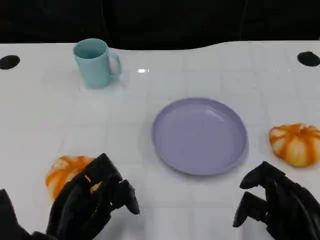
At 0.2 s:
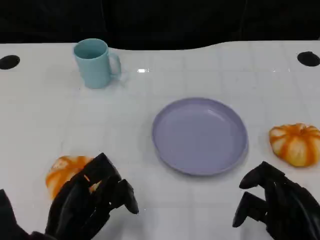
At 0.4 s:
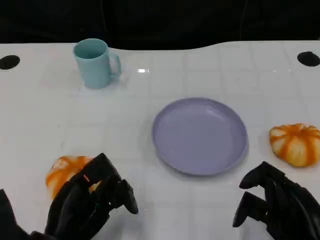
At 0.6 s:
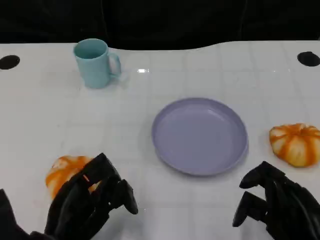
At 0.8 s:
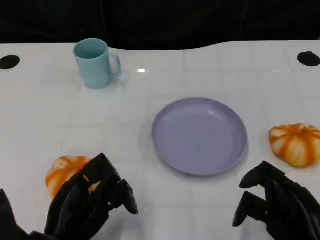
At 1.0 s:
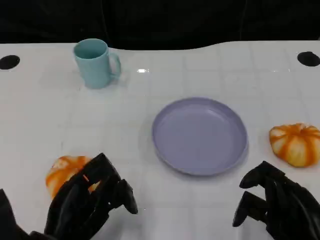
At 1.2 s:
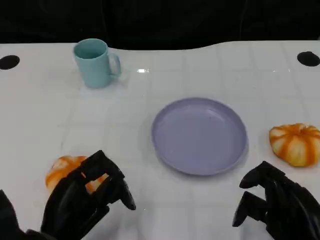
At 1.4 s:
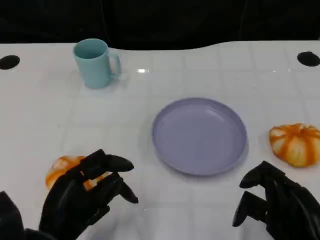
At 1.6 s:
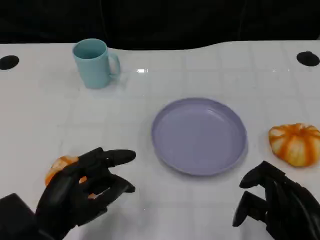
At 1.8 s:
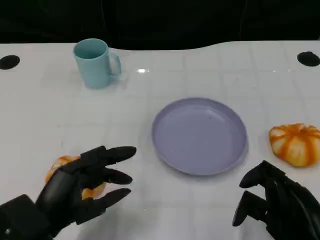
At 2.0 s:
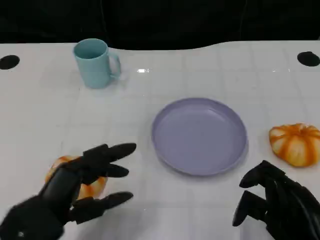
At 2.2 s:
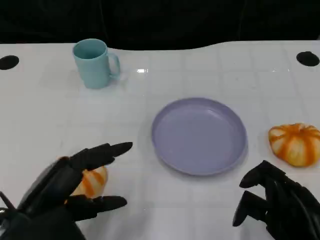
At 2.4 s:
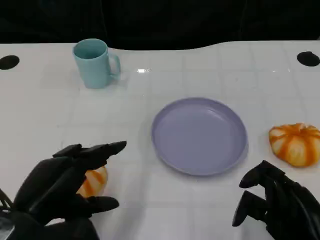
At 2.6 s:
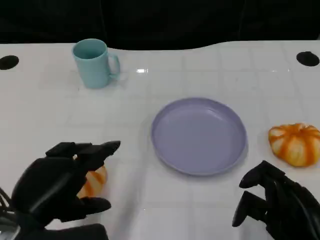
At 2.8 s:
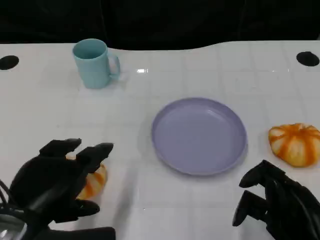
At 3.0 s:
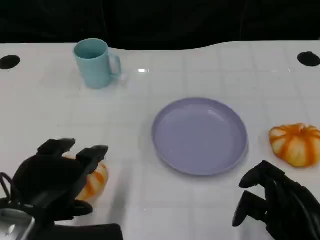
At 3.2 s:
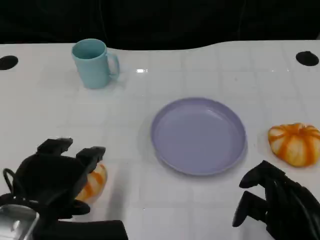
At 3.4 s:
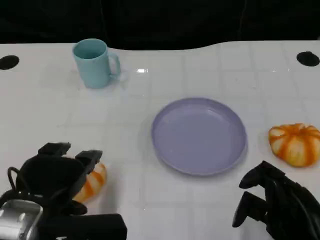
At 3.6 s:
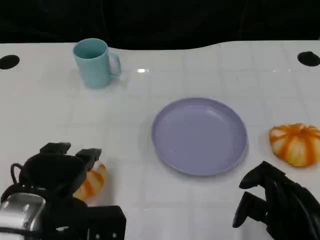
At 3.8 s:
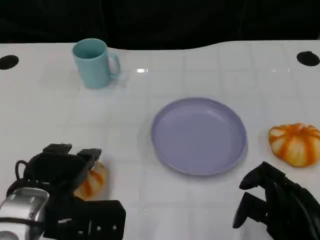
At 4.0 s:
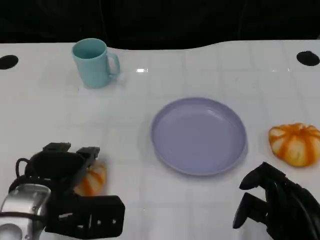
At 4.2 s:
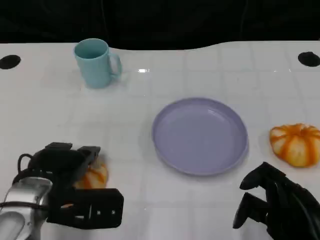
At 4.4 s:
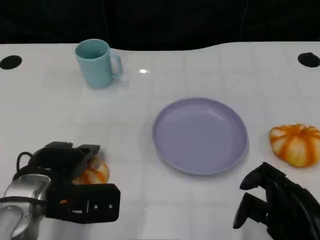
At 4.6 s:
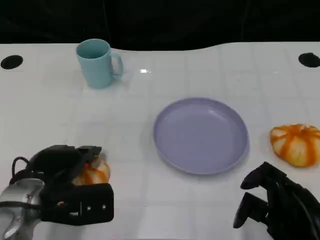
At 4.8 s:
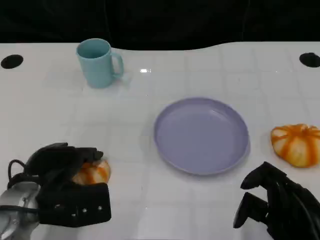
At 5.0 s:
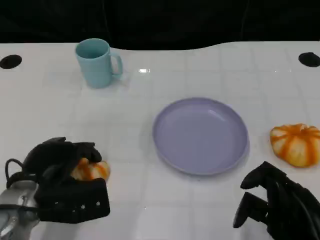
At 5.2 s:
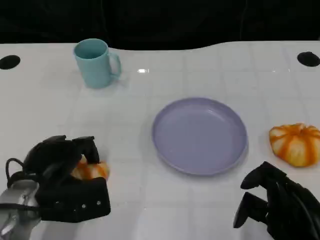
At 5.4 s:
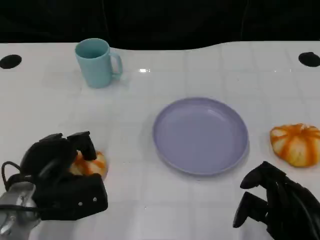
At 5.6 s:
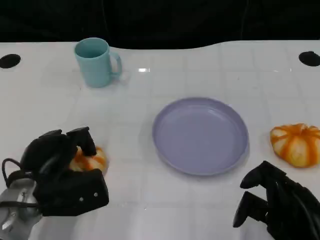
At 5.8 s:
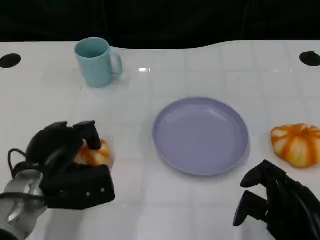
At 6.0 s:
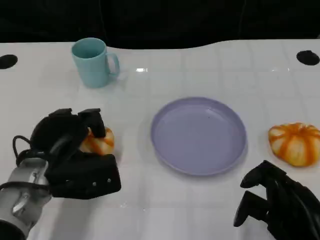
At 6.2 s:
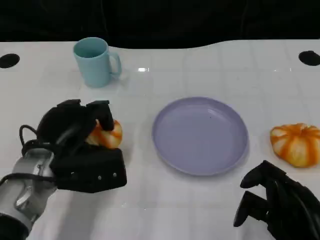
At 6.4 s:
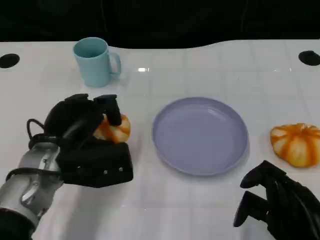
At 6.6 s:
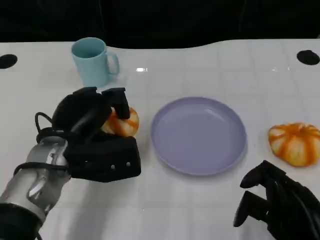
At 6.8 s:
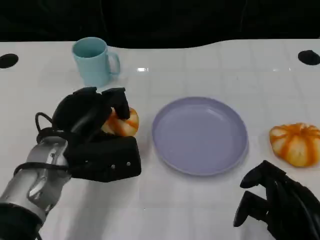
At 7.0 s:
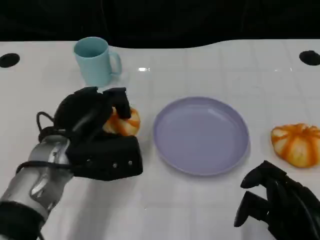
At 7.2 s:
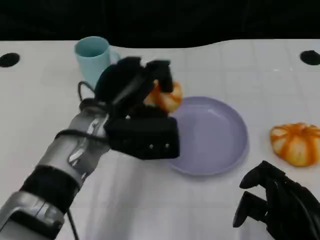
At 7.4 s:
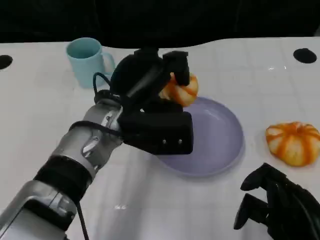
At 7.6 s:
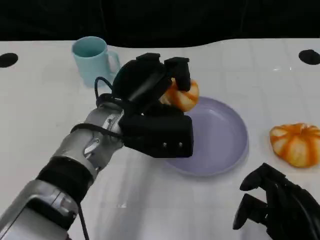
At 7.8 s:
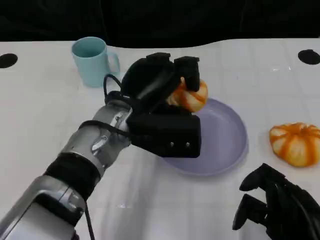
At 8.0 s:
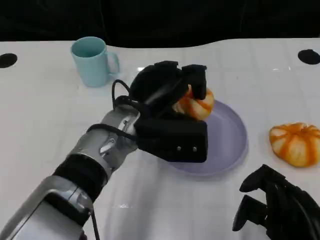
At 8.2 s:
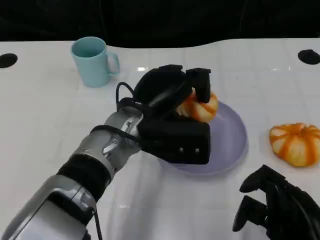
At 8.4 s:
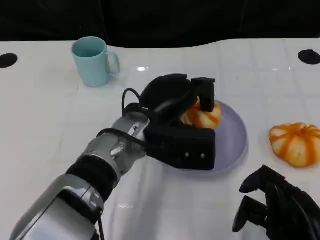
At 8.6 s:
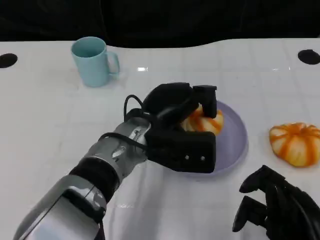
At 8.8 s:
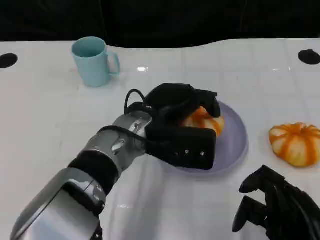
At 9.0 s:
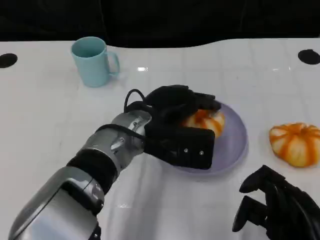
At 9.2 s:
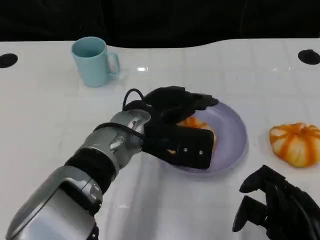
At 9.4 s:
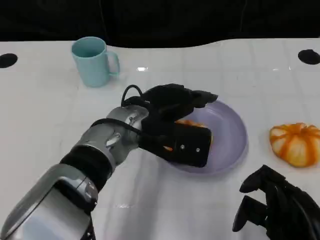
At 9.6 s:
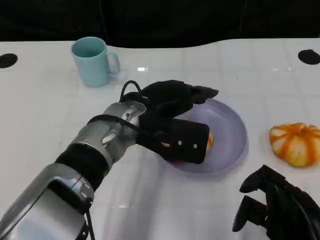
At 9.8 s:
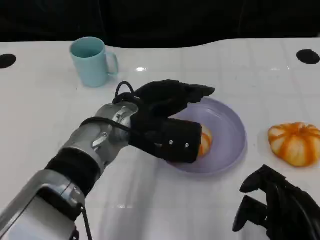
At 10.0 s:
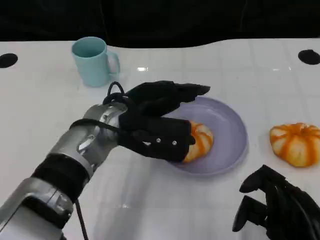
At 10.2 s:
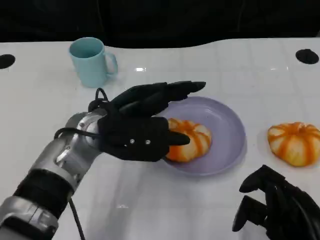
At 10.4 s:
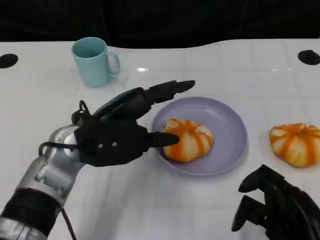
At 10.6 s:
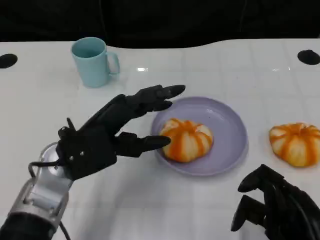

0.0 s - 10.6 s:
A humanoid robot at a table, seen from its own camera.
Task of the whole recording: Grasp the bread from the table and place it into the plate.
1.6 s - 3.0 s: The left hand travels upward by approximately 5 cm.
3.0 s - 4.6 s: The left hand shifts roughly 10 cm forward and downward.
4.6 s - 6.0 s: There are only small adjustments of the hands.
6.0 s - 7.6 s: The left hand moves to the right and upward, roughly 15 cm.
9.0 s - 10.6 s: The left hand moves to the left, approximately 10 cm.

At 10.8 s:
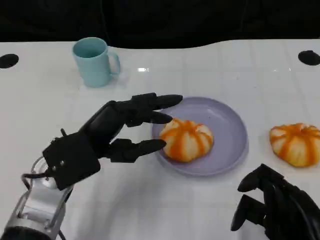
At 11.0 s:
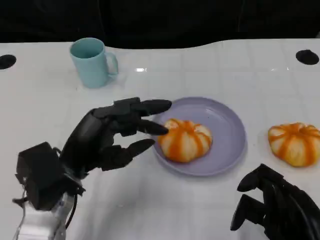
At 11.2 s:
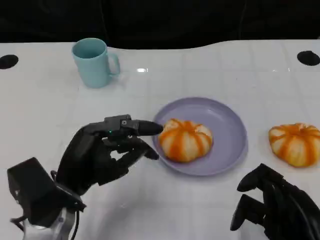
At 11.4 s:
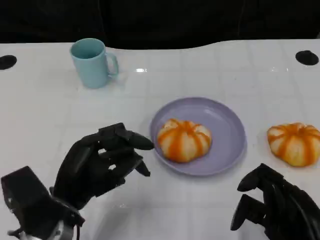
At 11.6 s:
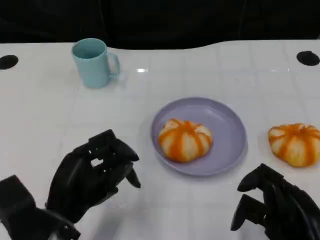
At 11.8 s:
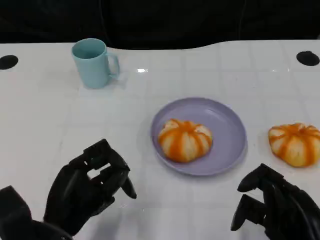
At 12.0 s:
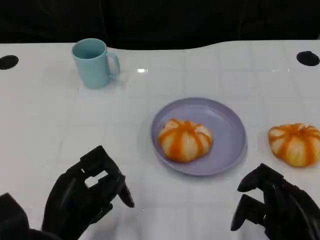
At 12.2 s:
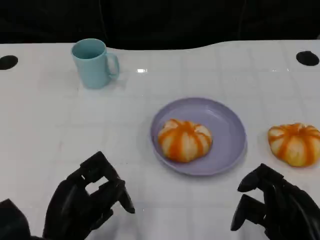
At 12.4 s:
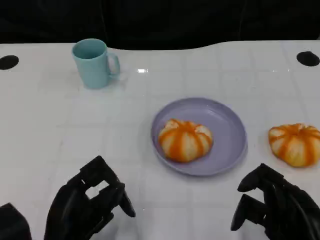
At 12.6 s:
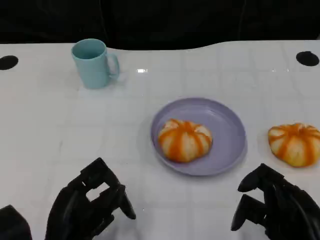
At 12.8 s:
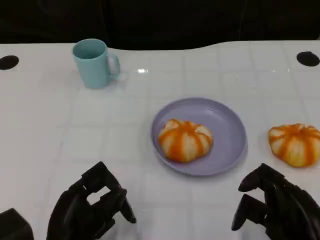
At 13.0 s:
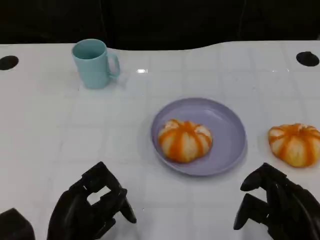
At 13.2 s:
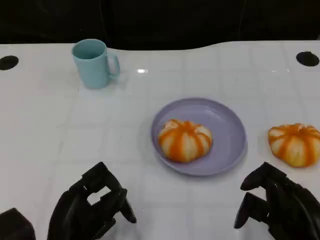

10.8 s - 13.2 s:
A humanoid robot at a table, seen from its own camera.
Task of the whole recording: Grasp the bread from the table and place it into the plate.
10.8 s - 12.0 s: The left hand shifts roughly 10 cm backward and downward.
12.0 s - 13.2 s: The hands move only a little.

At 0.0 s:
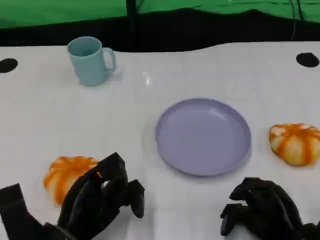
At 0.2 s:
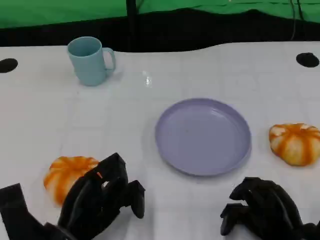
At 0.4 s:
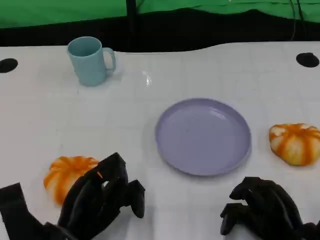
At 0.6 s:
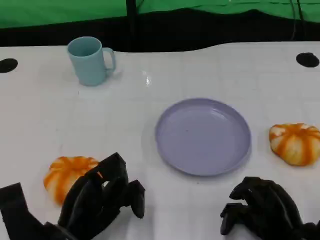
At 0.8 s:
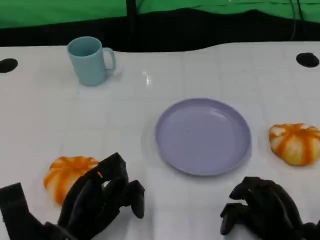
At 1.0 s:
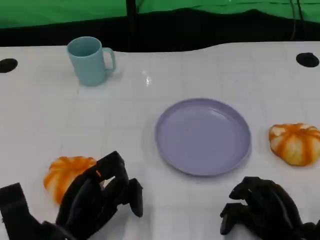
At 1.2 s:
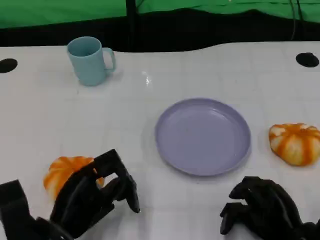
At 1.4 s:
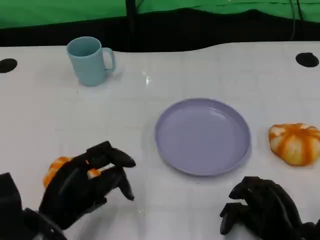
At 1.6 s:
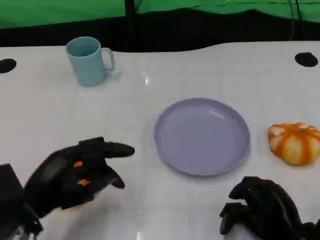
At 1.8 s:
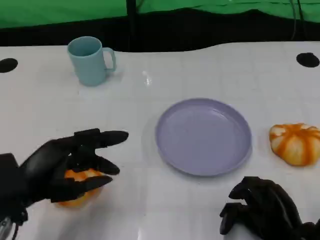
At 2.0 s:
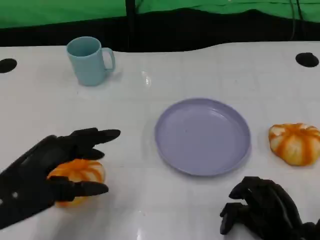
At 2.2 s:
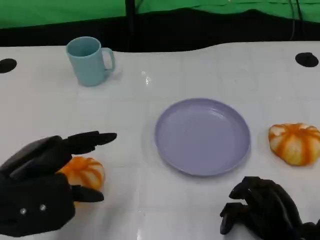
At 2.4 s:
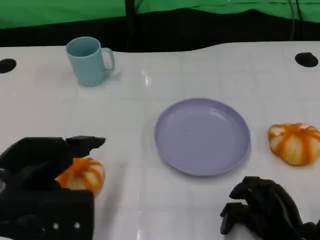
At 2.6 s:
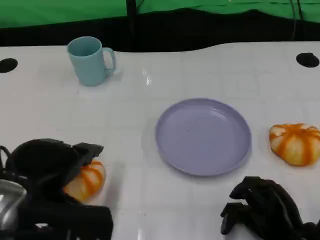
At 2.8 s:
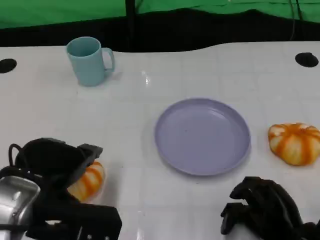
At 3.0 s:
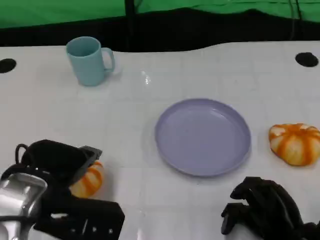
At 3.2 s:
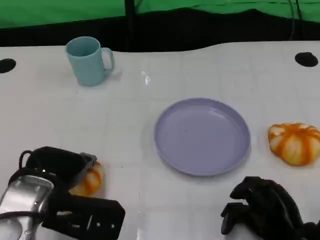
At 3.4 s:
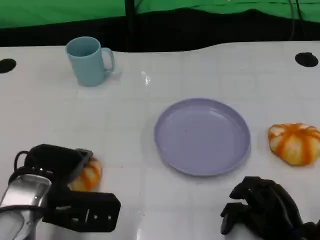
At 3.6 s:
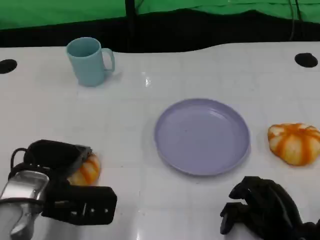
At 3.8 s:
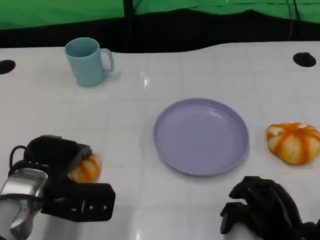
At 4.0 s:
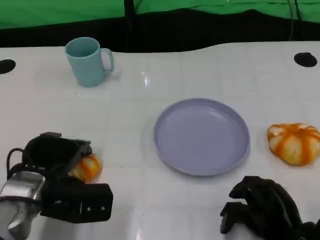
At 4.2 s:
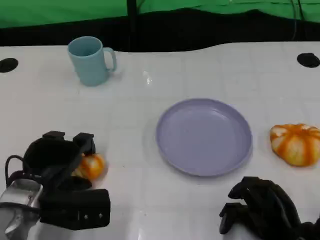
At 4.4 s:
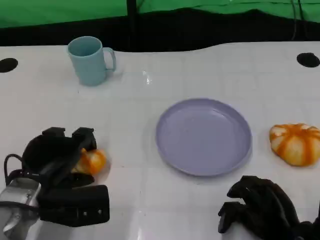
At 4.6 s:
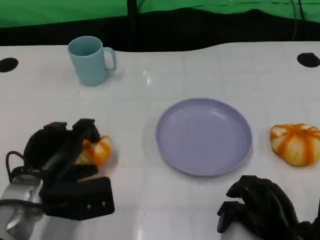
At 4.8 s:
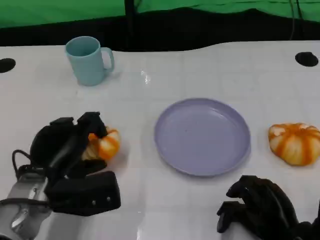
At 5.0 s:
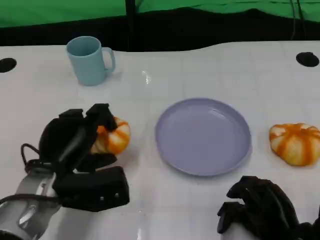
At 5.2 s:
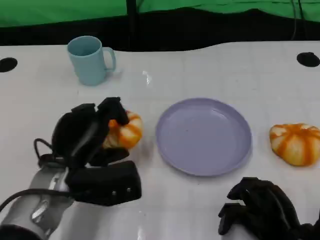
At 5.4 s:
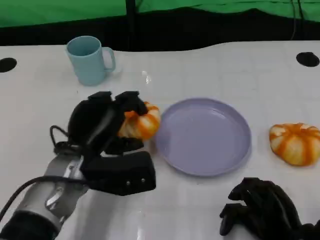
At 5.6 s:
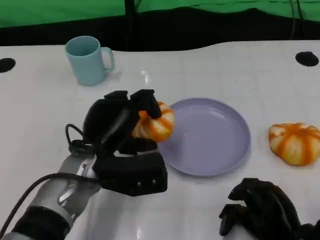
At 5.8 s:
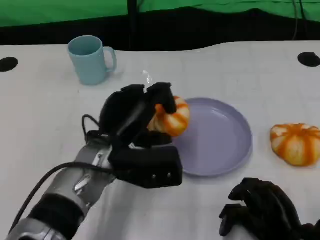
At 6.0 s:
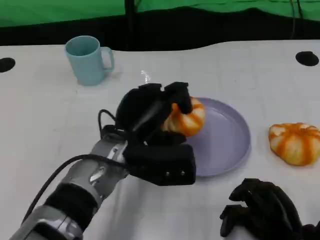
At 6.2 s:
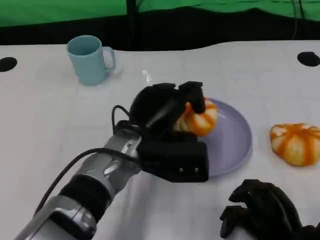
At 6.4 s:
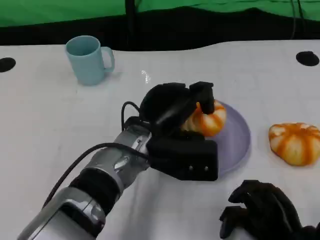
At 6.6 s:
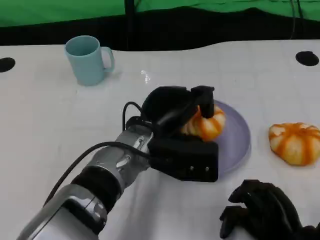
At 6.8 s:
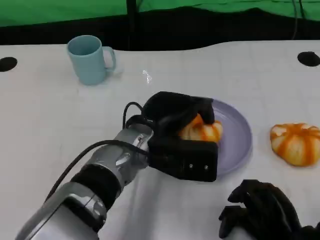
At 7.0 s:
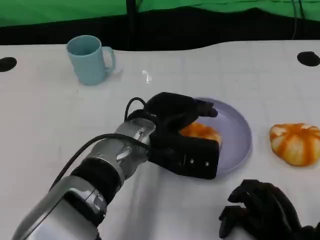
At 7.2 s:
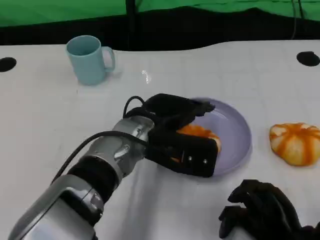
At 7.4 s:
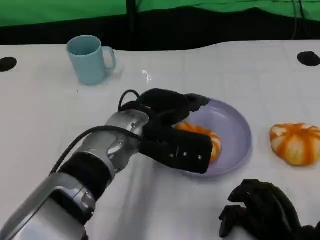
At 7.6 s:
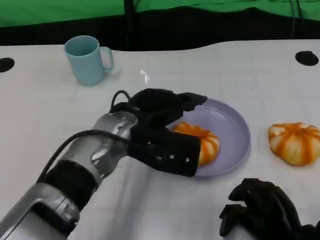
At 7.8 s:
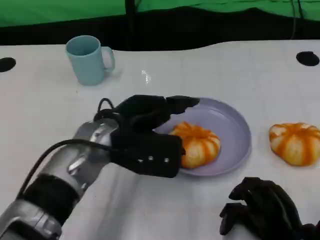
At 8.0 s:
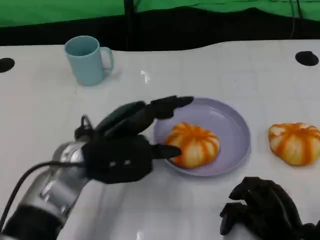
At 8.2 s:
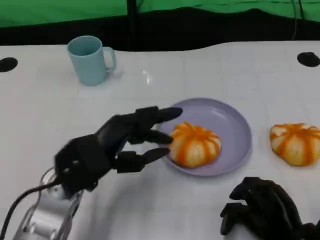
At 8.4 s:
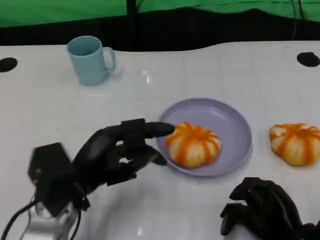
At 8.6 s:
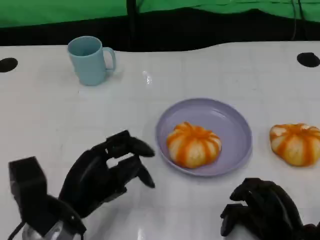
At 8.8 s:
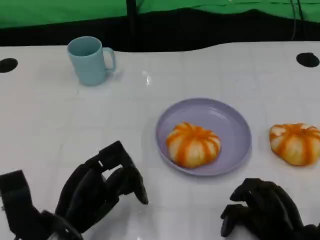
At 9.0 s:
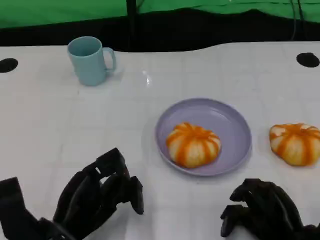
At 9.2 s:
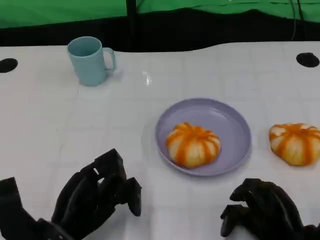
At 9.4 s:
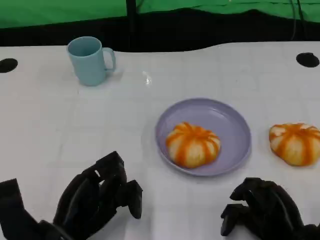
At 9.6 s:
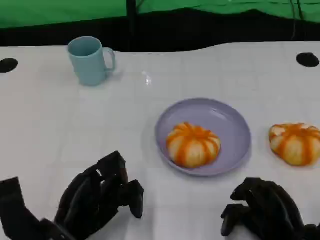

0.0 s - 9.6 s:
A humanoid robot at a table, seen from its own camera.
Task of the whole recording: Grasp the bread from the table and place it into the plate.
0.0 s - 1.6 s: The left hand is displaced upward and to the left by about 10 cm.
4.8 s - 6.4 s: The left hand moves to the right, some 15 cm.
6.4 s - 8.0 s: The left hand goes roughly 10 cm to the left.
8.0 s - 9.6 s: The left hand travels backward and downward by some 10 cm.
